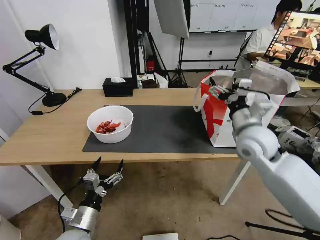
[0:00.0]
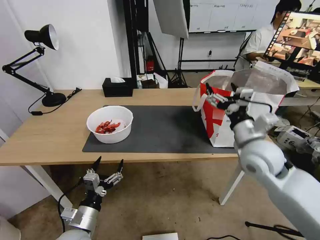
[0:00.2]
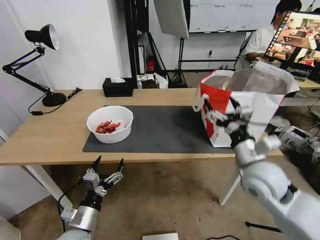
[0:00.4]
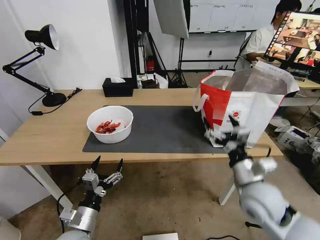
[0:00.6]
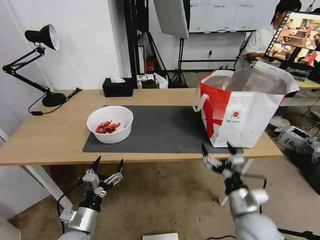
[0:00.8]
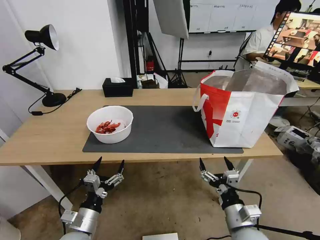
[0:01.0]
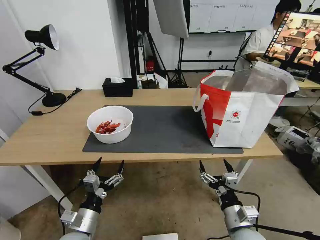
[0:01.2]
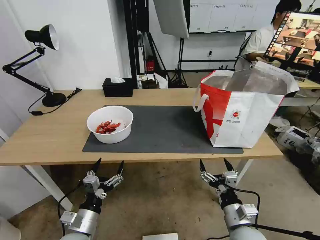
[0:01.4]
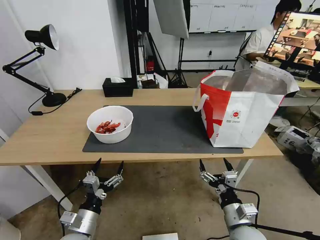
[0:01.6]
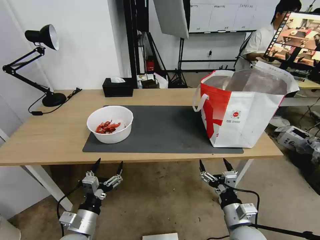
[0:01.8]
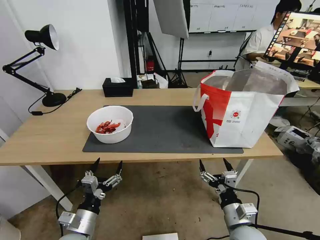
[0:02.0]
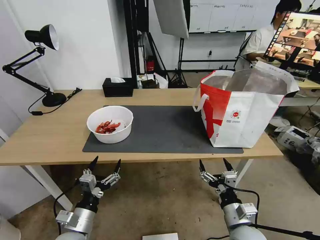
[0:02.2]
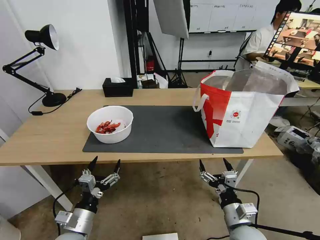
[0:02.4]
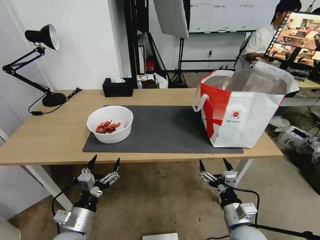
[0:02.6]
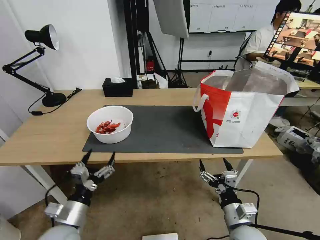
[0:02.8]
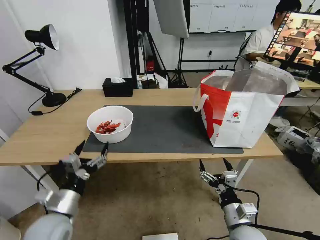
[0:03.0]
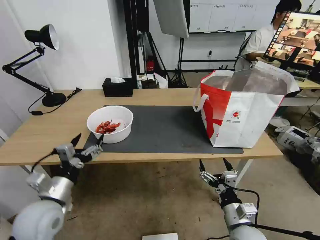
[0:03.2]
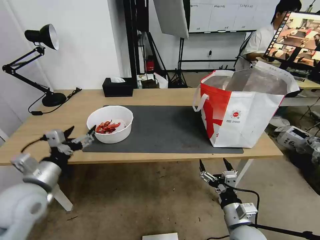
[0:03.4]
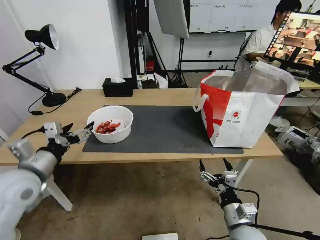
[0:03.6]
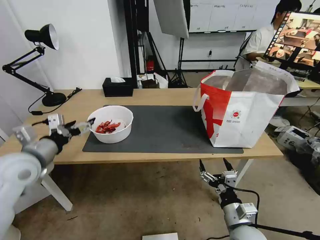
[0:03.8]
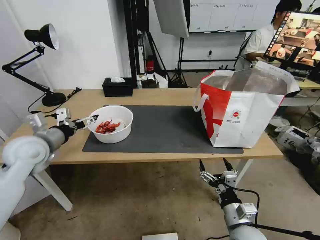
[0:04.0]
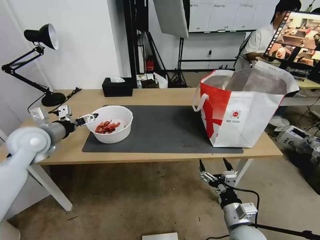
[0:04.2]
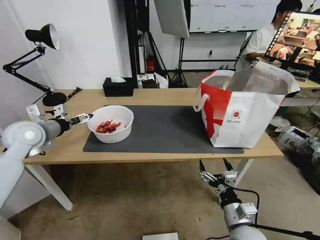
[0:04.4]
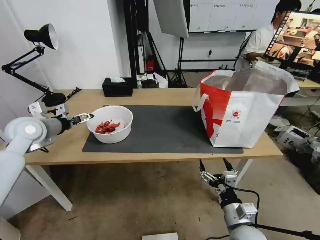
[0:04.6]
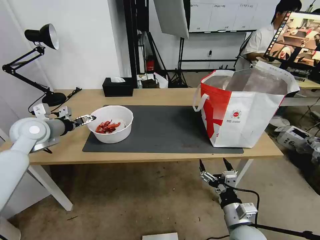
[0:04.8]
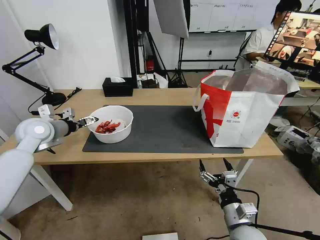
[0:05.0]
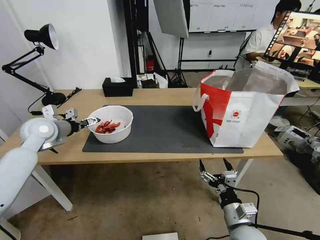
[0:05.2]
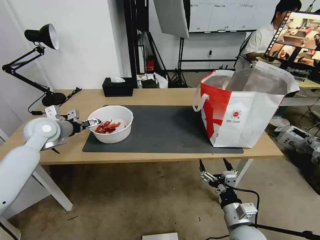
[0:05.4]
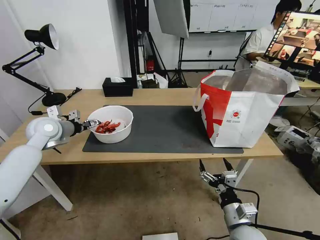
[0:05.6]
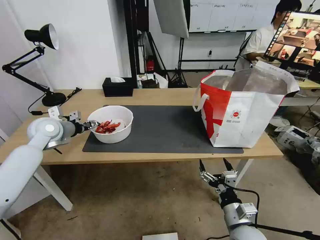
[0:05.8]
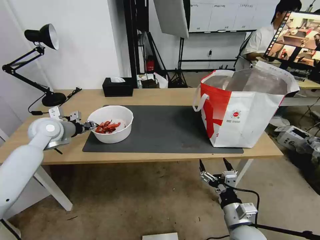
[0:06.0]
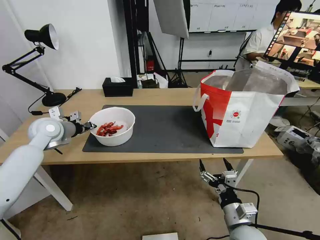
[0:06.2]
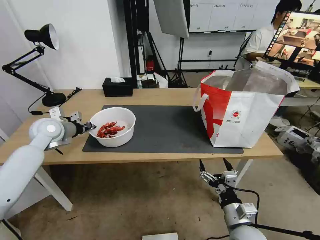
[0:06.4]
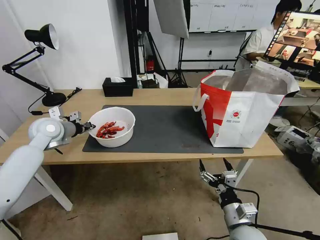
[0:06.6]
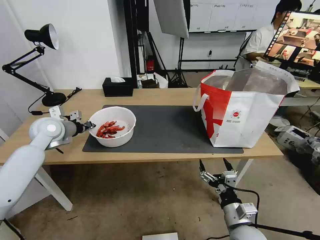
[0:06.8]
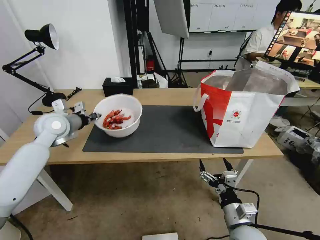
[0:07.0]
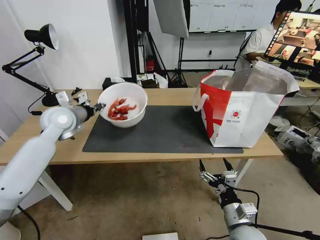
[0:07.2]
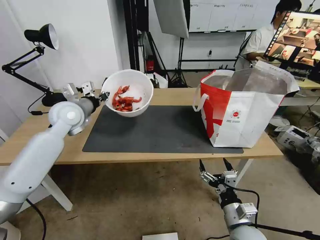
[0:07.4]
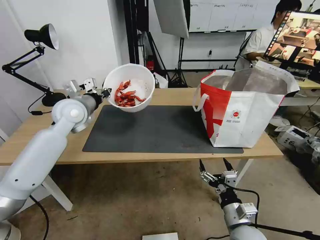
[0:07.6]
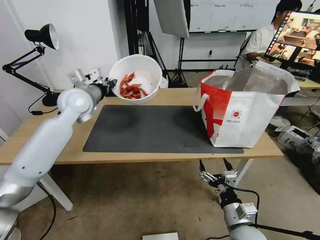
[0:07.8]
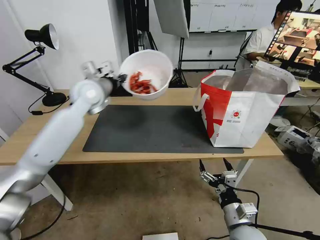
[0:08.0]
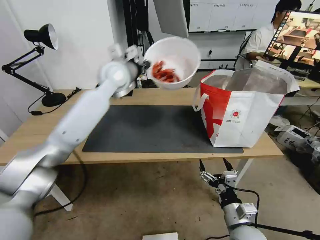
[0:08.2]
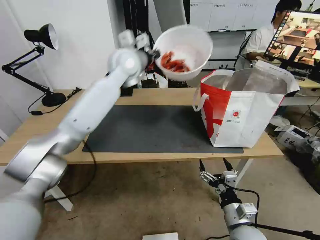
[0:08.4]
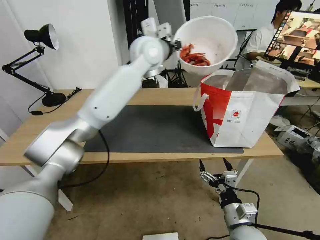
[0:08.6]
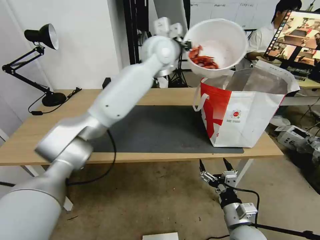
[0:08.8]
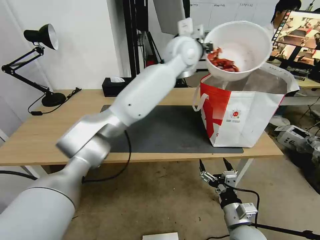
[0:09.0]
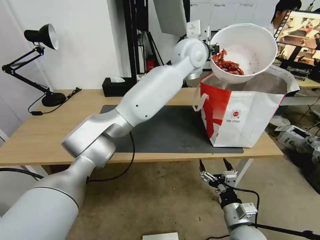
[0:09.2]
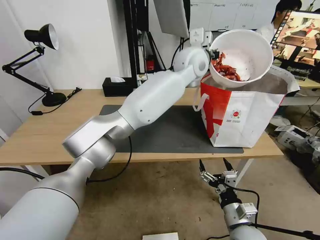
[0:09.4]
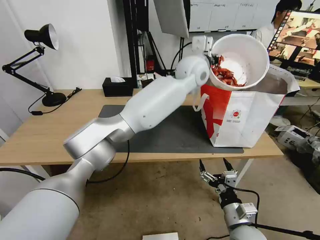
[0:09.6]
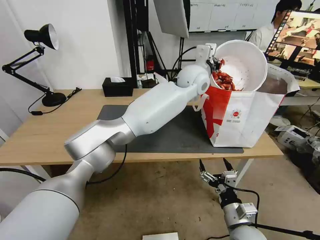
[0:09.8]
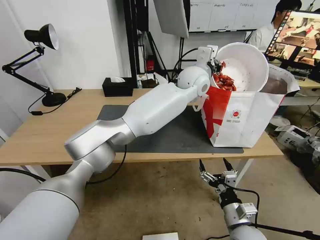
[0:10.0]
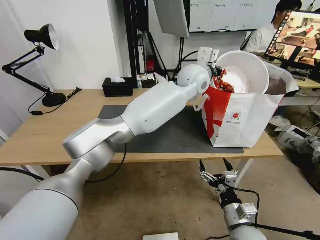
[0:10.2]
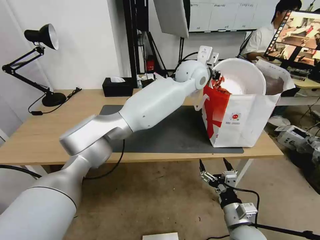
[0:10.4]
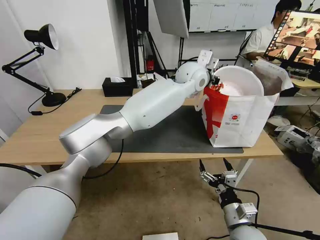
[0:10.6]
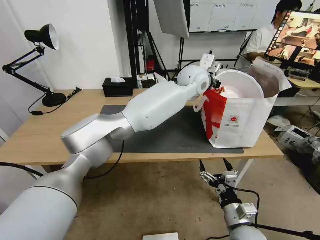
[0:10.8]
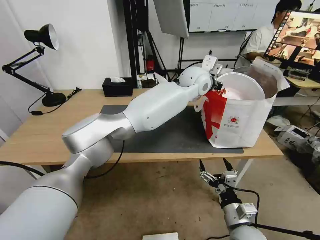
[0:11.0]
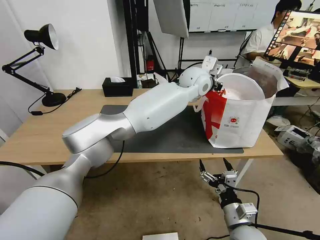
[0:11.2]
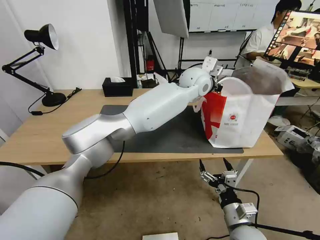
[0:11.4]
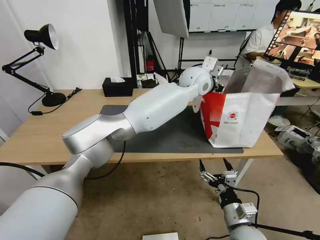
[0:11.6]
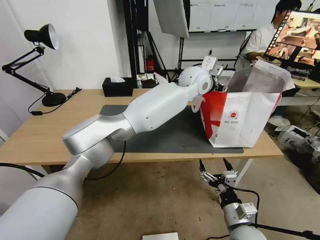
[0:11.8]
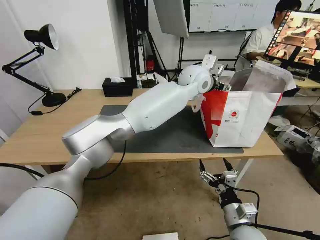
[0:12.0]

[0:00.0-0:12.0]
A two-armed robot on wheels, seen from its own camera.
Task of the whole recording: Pick up the trash from the table and place it into the takeout bag.
0:00.0 to 0:01.6: The right gripper heads downward and backward, covering some 30 cm.
0:01.6 to 0:03.0: The left gripper moves upward, about 10 cm.
0:03.0 to 0:04.4: The left gripper goes approximately 25 cm forward, upward and to the left.
0:04.4 to 0:06.0: The left gripper heads forward, covering approximately 5 cm, and closes up.
0:06.0 to 0:07.6: The left gripper heads to the right and upward, covering roughly 10 cm.
0:07.6 to 0:09.0: The left gripper is displaced to the right and upward by some 35 cm.
0:09.0 to 0:10.4: The left gripper moves downward, about 5 cm.
0:10.4 to 0:12.0: The left gripper opens up.

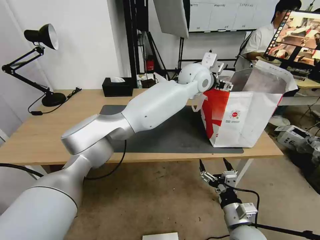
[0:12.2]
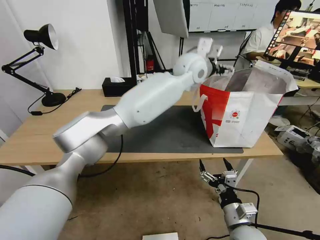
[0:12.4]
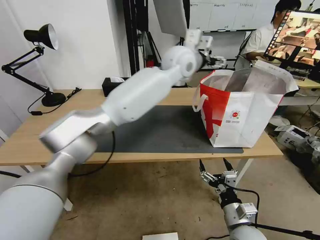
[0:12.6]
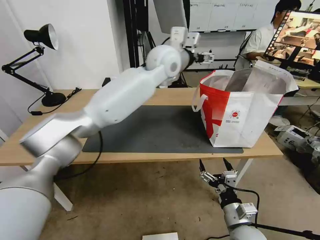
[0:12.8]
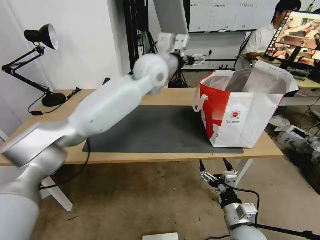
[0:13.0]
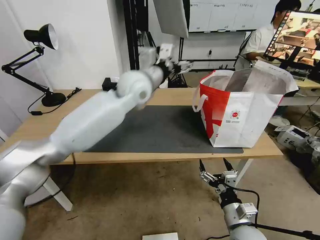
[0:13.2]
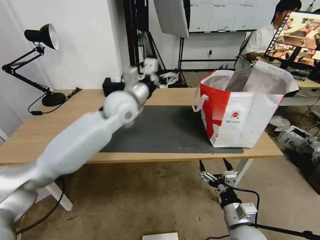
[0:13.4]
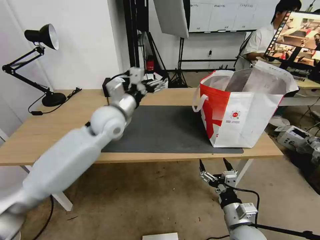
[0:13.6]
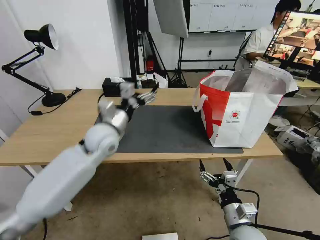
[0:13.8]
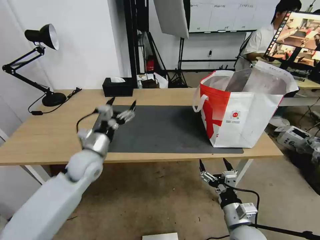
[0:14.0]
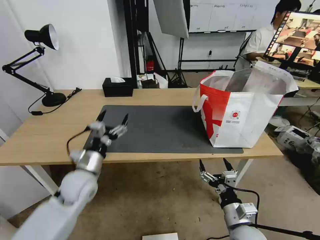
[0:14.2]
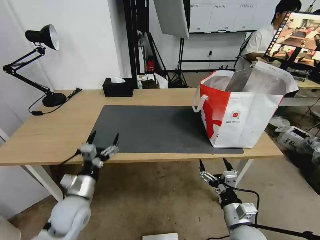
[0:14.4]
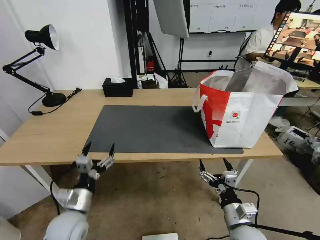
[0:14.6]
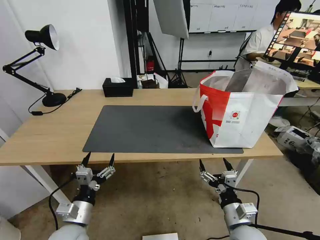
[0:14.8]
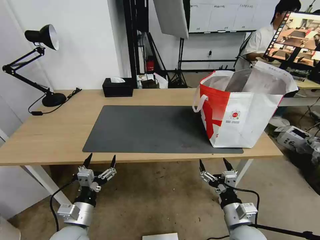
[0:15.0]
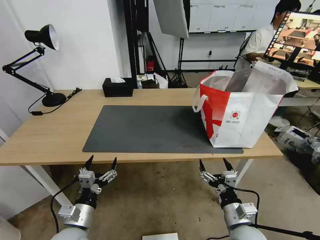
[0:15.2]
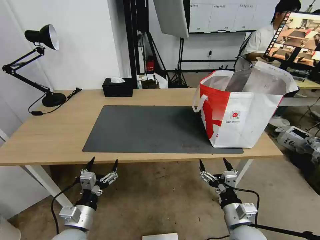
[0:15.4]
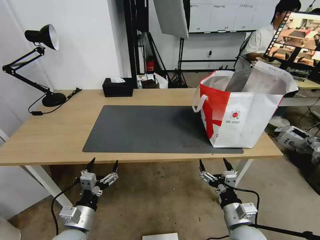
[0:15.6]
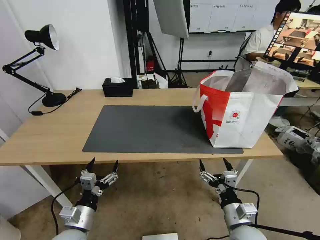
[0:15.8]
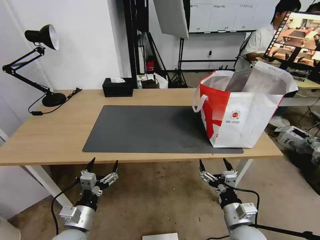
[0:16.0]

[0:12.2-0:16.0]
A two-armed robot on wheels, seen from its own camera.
Task of the whole recording: Pick up the trash from the table and place it into the takeout bag.
0:12.2 to 0:13.4: The left gripper travels to the left by approximately 25 cm.
0:13.4 to 0:14.8: The left gripper travels backward, downward and to the left by approximately 40 cm.
0:14.8 to 0:16.0: There are only small adjustments of the grippers.
